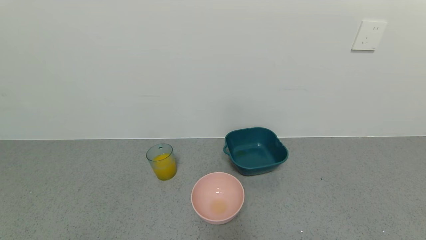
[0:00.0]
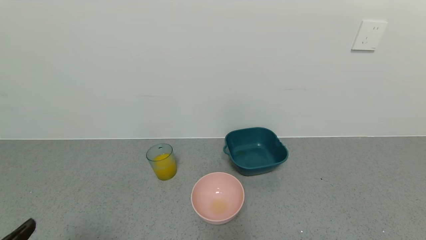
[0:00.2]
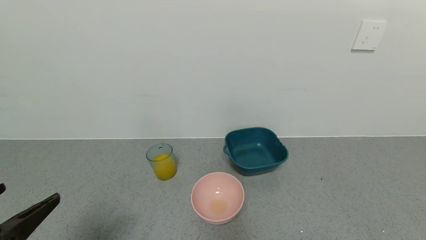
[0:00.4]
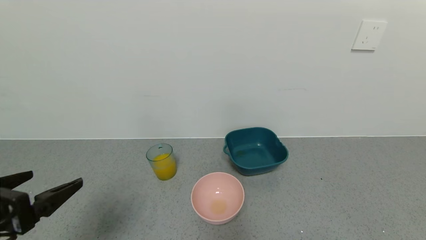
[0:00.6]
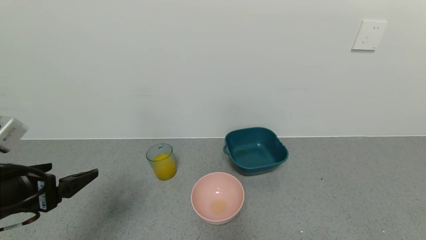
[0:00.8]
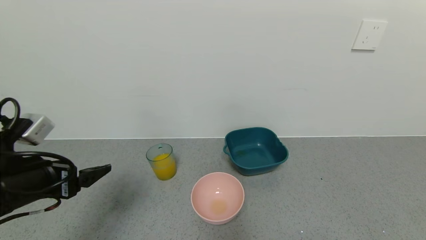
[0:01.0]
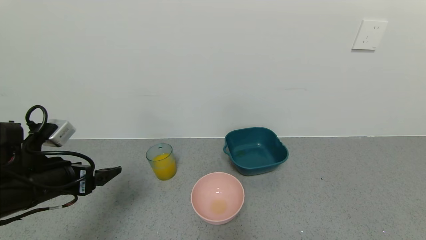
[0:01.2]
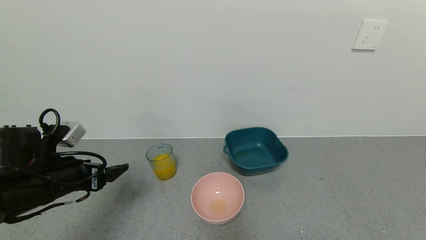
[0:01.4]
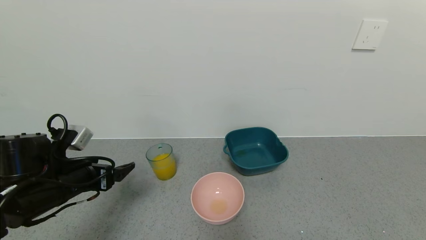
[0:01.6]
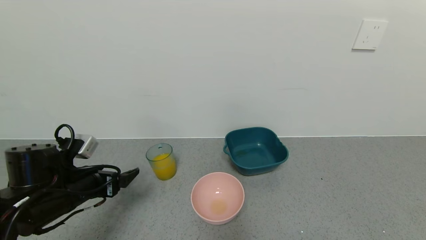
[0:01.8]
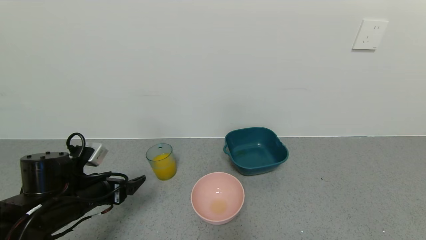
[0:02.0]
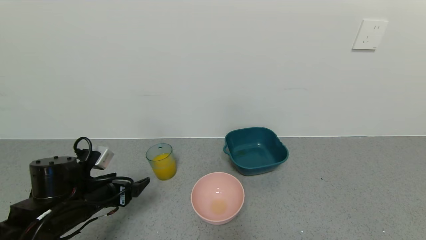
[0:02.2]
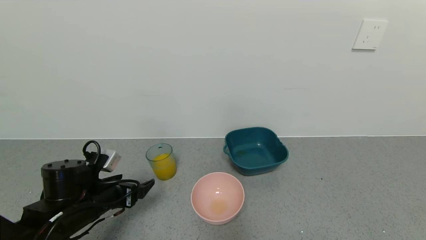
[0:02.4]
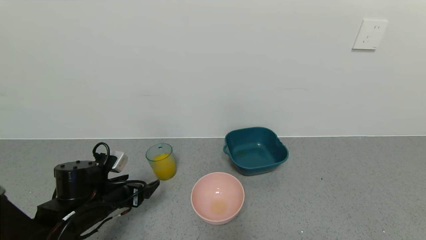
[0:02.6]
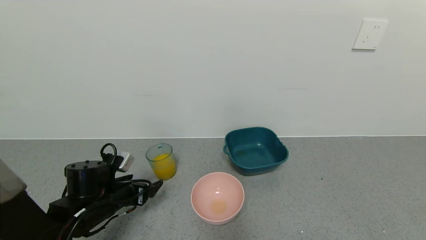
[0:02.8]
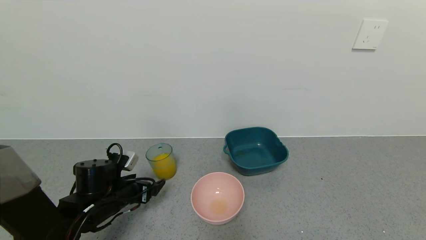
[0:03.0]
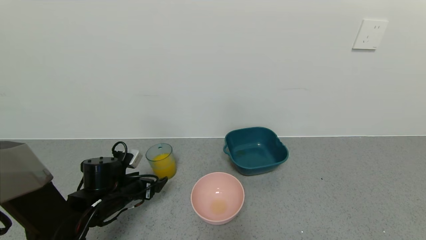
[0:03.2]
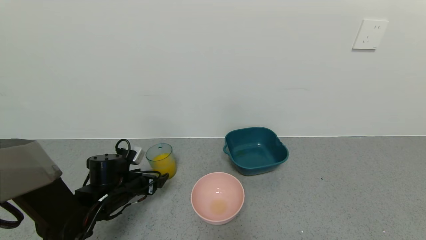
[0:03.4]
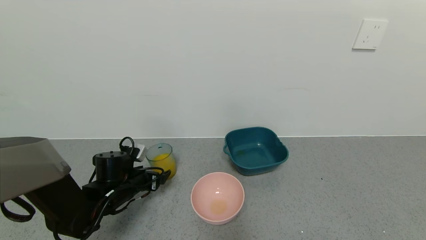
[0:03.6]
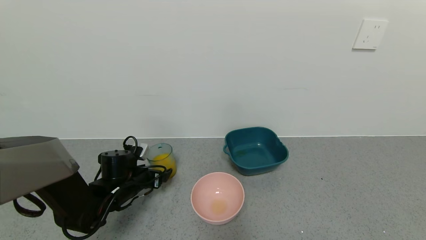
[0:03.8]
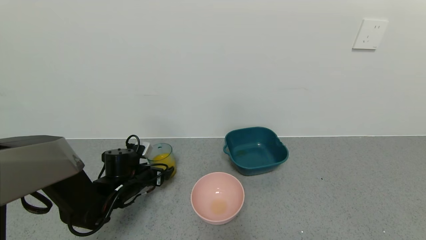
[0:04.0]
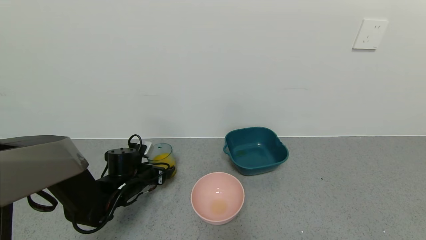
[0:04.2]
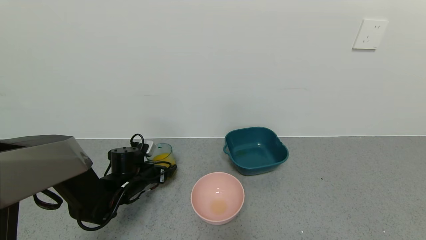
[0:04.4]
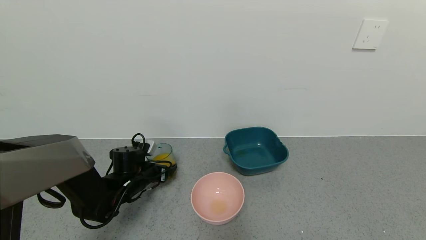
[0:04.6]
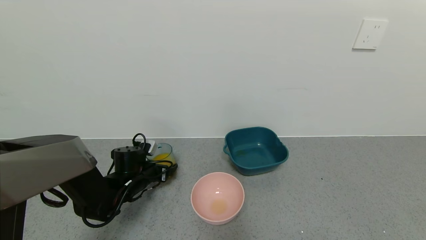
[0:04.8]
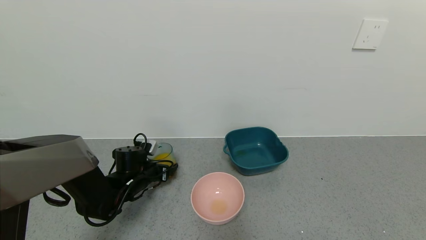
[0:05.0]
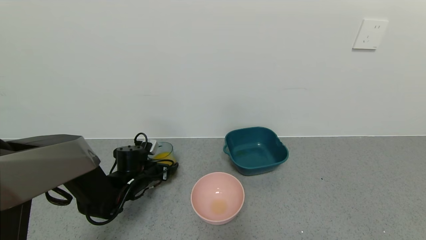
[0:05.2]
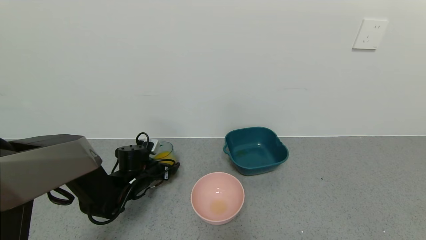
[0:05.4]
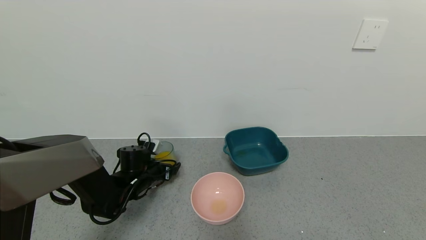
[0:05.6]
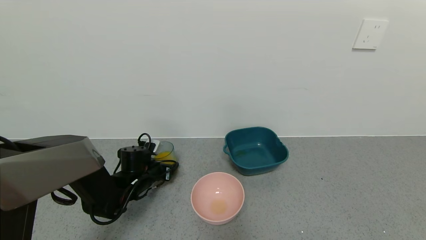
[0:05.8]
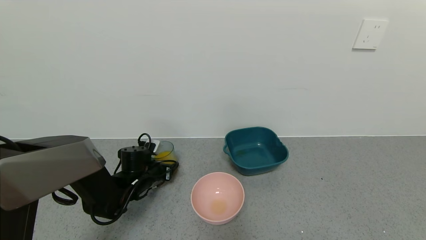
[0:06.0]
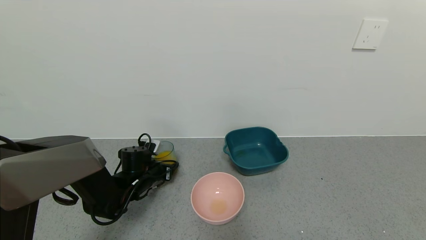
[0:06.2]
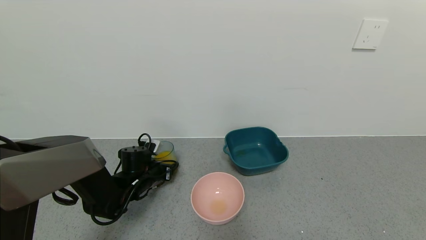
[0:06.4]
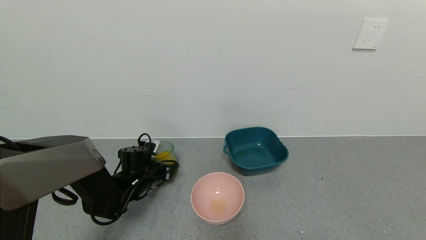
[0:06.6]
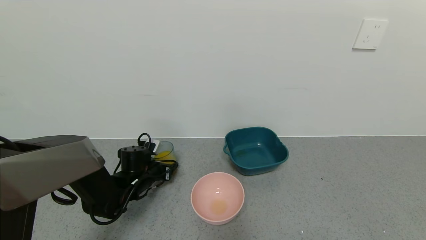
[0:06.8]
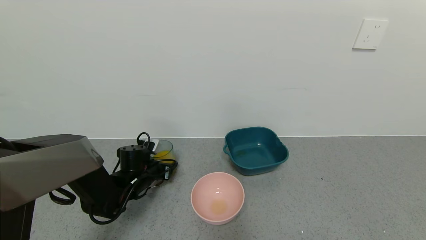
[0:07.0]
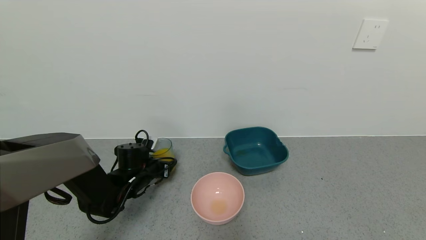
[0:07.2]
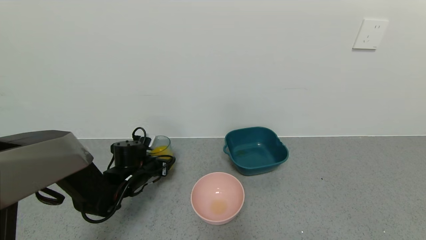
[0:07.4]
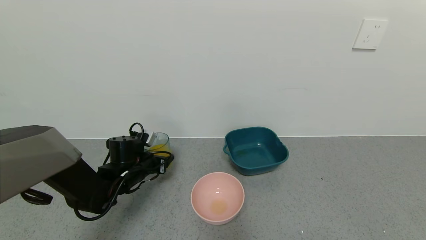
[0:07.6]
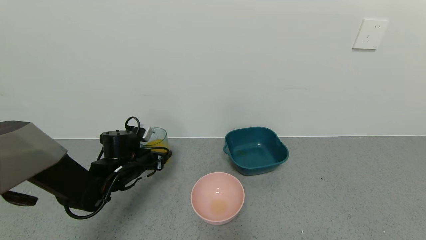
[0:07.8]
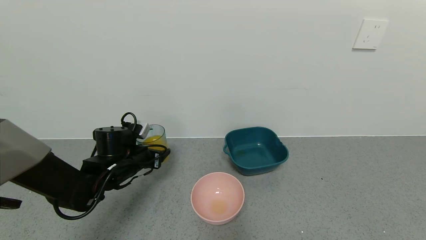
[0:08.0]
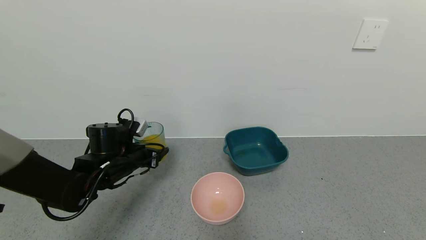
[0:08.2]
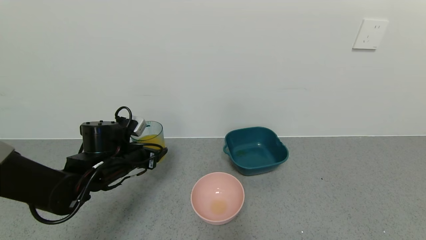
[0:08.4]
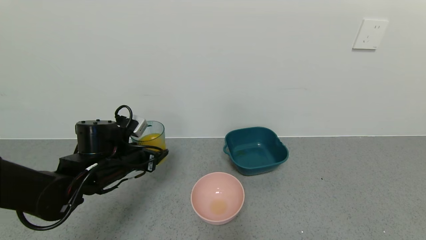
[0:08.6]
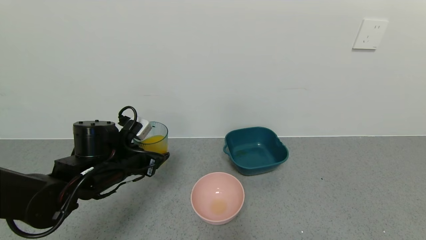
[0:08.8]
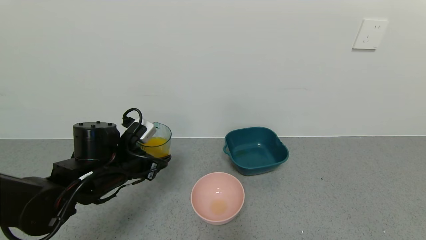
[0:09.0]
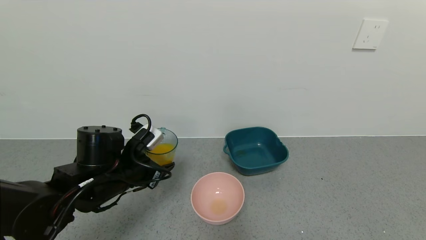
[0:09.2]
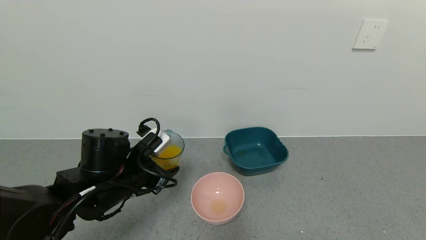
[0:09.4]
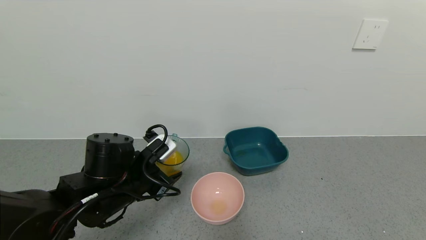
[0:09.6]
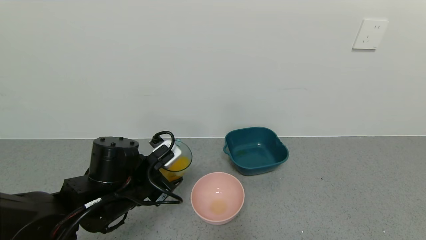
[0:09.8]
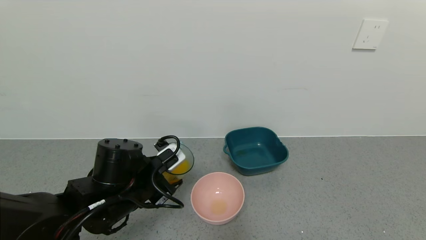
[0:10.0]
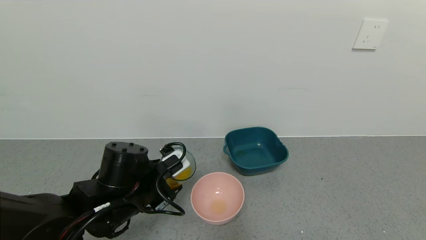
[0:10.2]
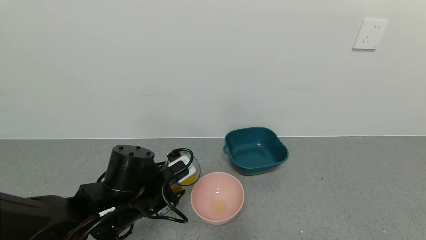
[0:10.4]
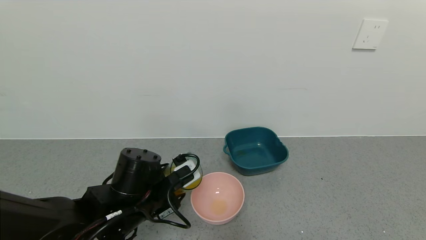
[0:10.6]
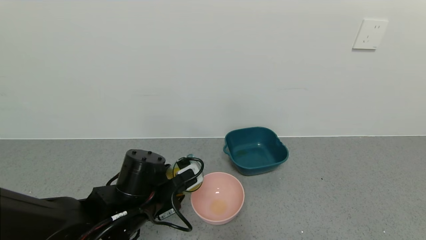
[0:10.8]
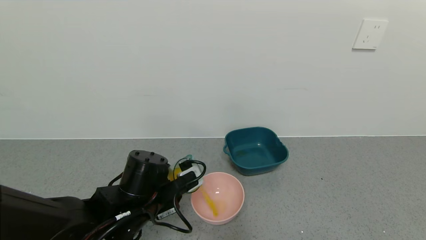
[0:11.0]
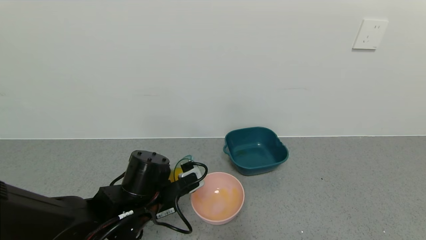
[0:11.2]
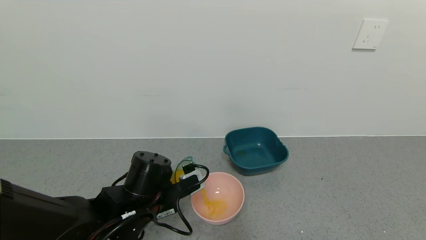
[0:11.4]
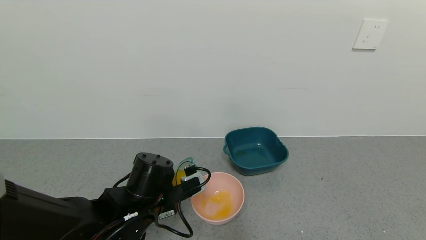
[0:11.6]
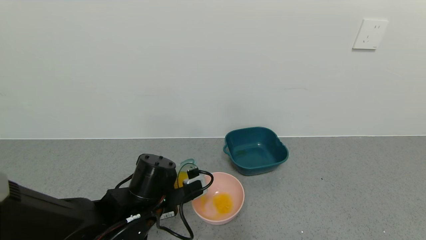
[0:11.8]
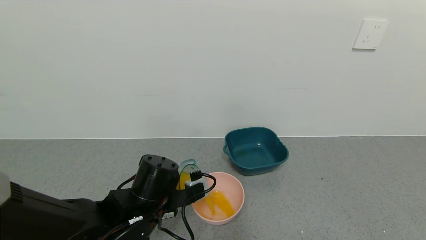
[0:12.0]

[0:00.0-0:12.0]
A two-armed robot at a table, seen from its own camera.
Task of the whole recording: use a gripper to pick up the cup and pour the liquid into a bowl or tray.
Step, 0:00.0 to 0:07.6: Pick up blue cup filled with orange juice with left gripper.
0:00.0 to 0:01.6: The left gripper goes approximately 25 cm forward.
0:01.6 to 0:03.0: The left gripper shifts approximately 10 cm downward.
0:03.0 to 0:04.4: The left gripper is displaced forward by some 10 cm.
0:04.4 to 0:06.0: The left gripper closes.
0:06.0 to 0:07.6: There are only small adjustments of the grippers.
0:07.6 to 0:09.0: The left gripper moves upward and backward, approximately 10 cm.
0:09.0 to 0:10.4: The left gripper travels to the right by roughly 5 cm.

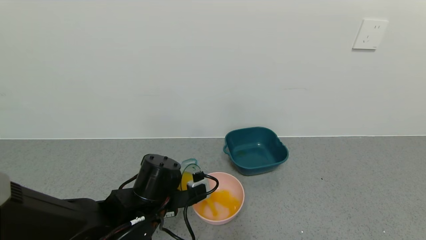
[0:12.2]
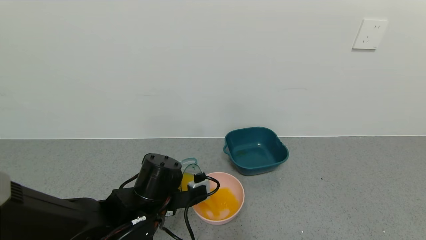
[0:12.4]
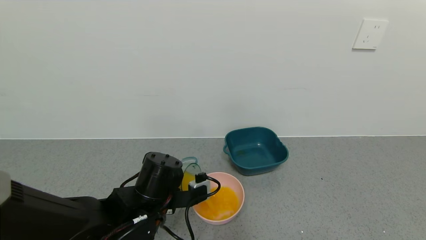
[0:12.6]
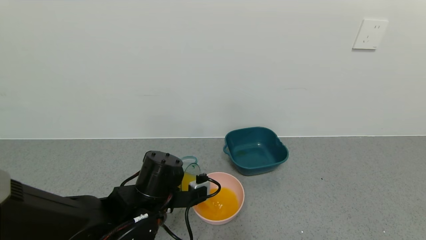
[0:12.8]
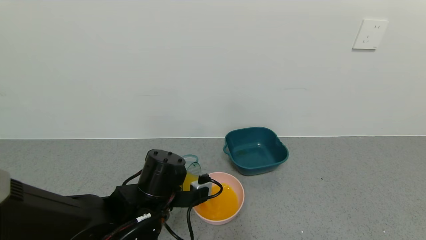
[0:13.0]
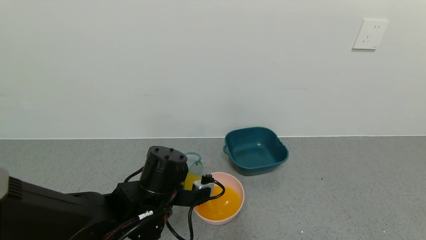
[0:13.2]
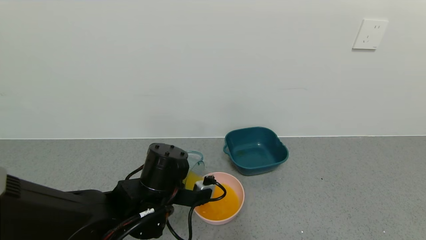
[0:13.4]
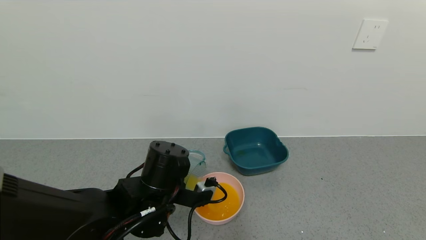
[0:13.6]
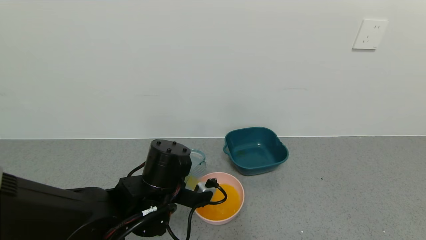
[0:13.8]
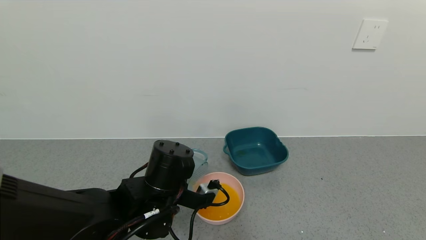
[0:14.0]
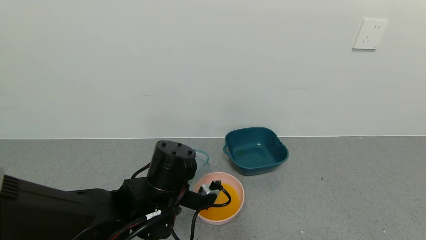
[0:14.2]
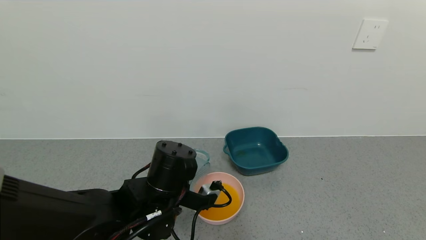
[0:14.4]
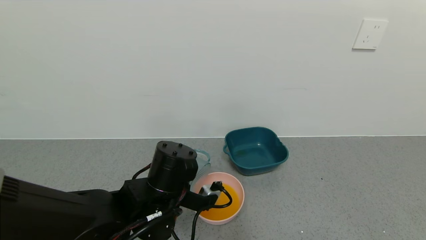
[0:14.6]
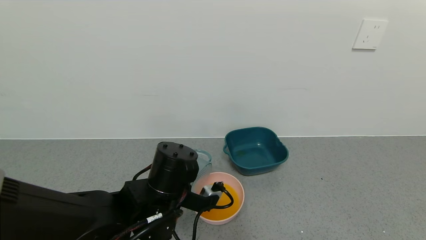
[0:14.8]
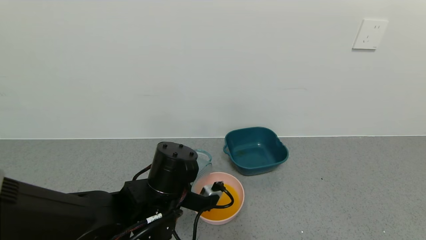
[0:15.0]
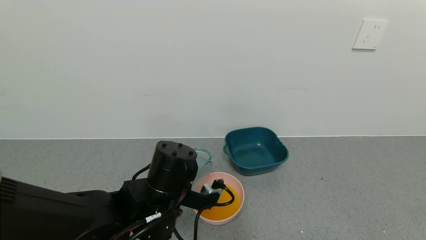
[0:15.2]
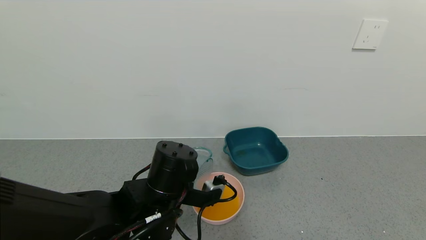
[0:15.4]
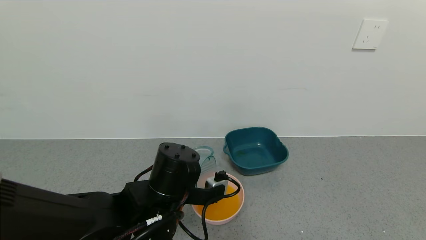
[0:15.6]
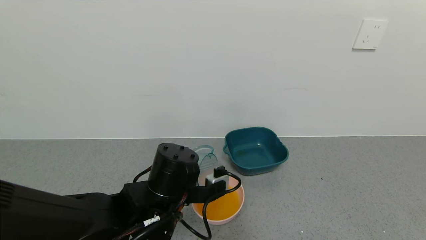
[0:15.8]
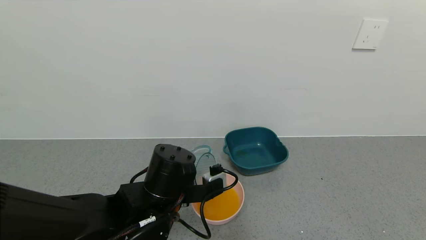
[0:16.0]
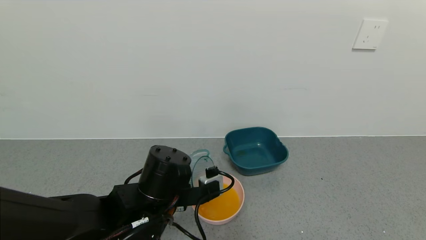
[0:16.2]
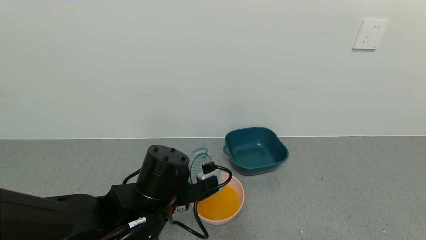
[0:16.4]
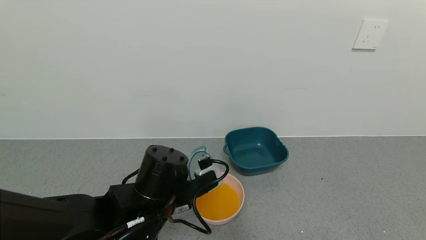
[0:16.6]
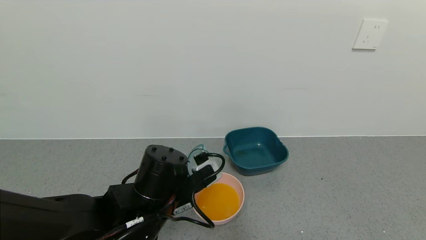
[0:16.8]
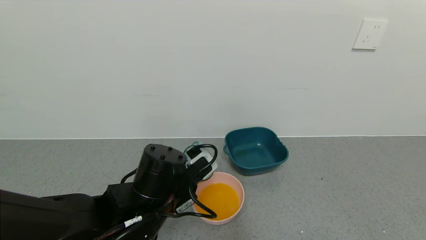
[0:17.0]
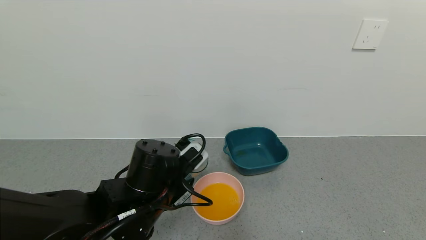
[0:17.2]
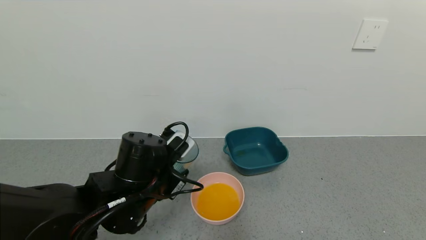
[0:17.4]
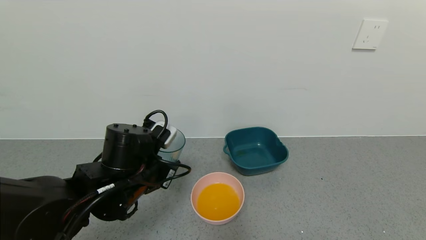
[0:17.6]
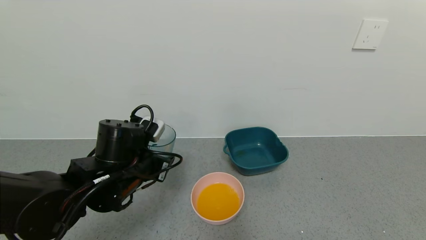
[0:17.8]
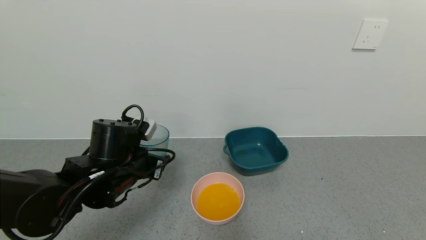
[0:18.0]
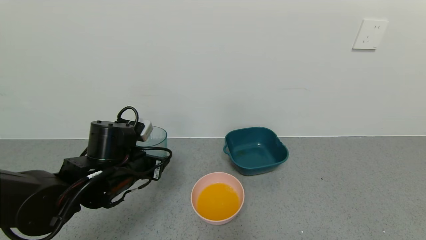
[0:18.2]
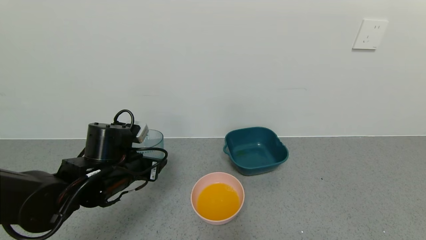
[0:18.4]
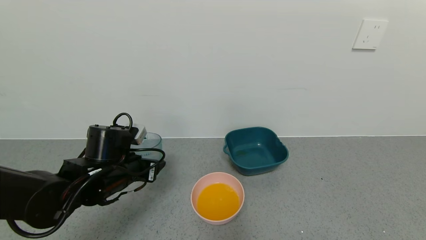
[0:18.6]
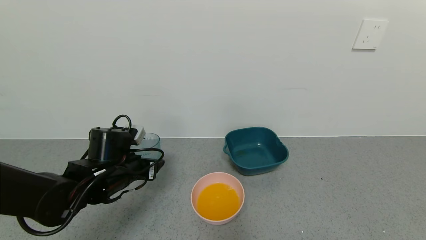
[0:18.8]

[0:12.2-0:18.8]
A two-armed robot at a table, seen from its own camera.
Task of the whole recording: use a gripper to pick up the cup and pour the liquid into a bowl or tray.
Step, 0:12.2 to 0:15.6: Pour the orange juice into the pink bowl with left gripper.
0:13.8 to 0:15.4: The grippers make only small movements.
0:17.2 to 0:18.8: The left gripper heads to the left and forward, covering some 10 cm.
